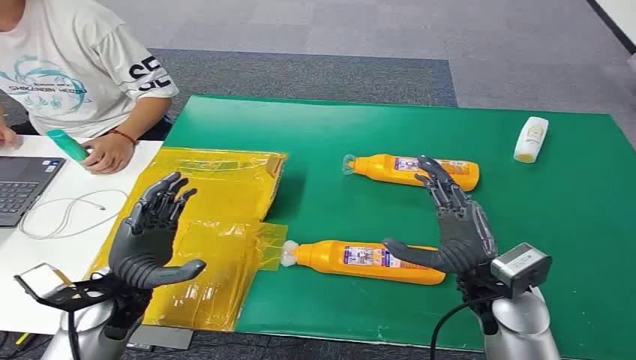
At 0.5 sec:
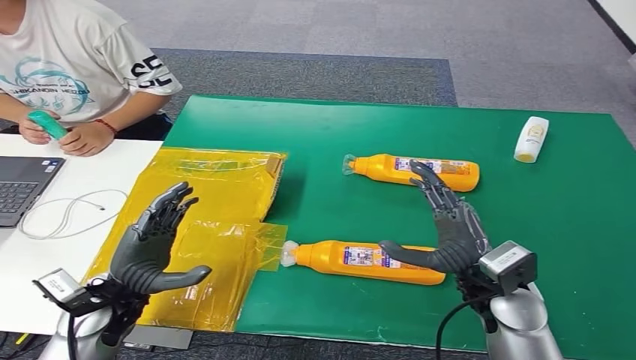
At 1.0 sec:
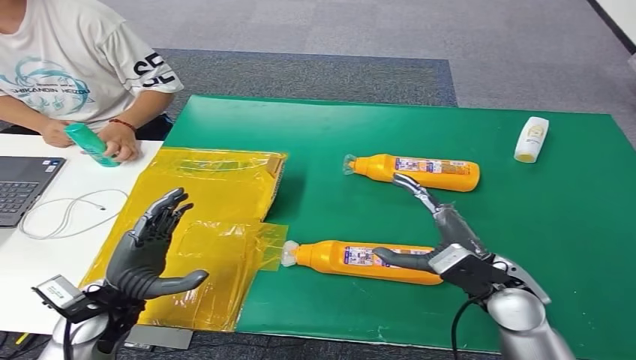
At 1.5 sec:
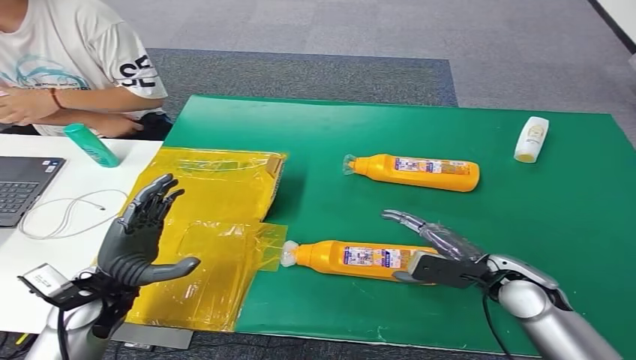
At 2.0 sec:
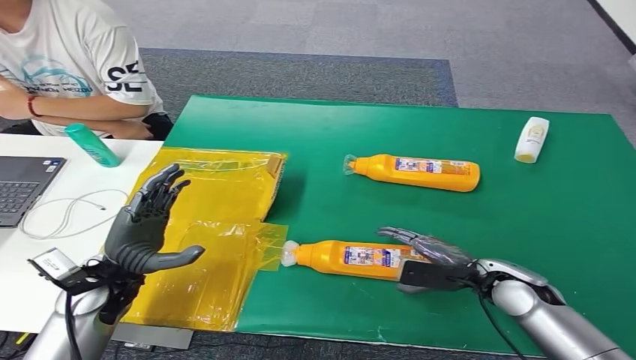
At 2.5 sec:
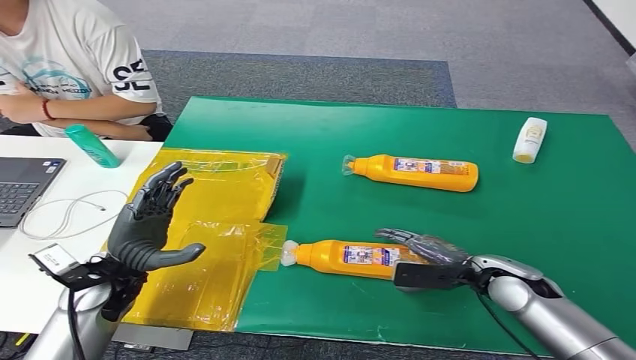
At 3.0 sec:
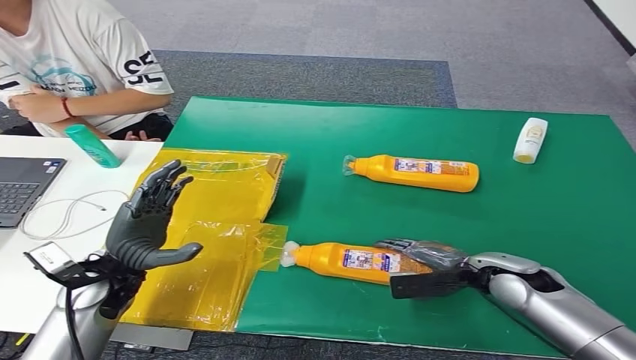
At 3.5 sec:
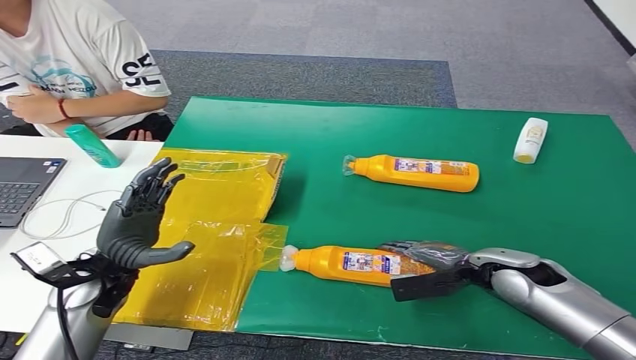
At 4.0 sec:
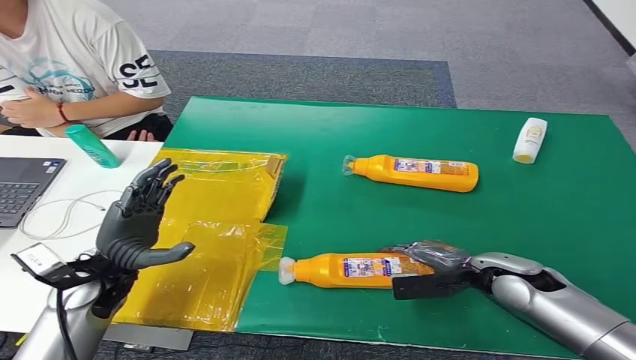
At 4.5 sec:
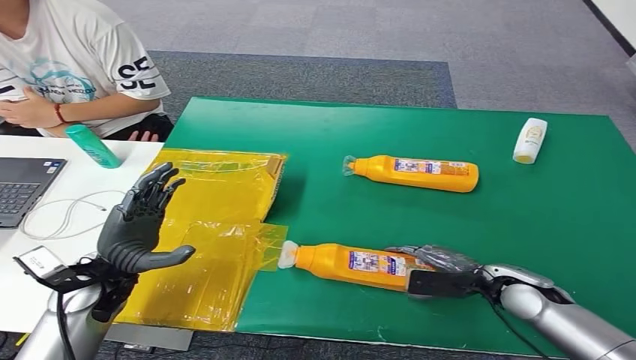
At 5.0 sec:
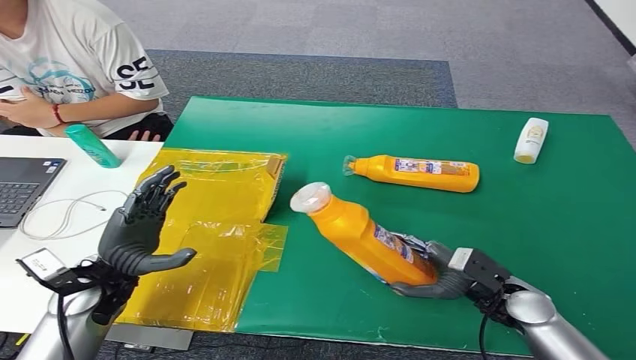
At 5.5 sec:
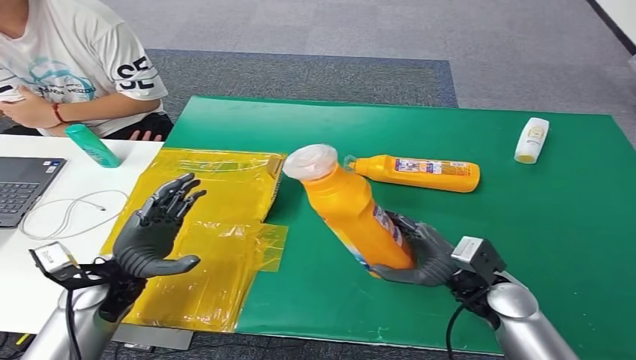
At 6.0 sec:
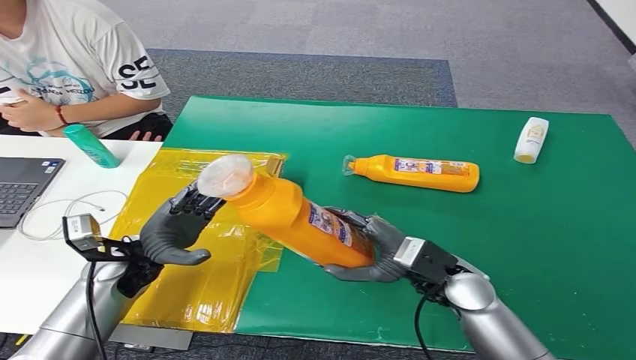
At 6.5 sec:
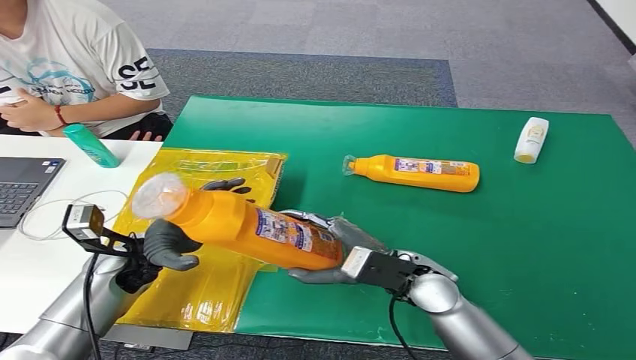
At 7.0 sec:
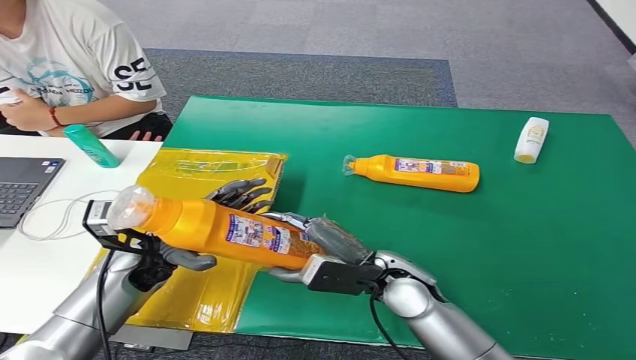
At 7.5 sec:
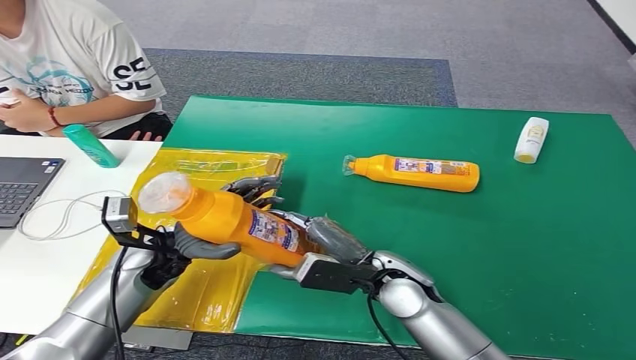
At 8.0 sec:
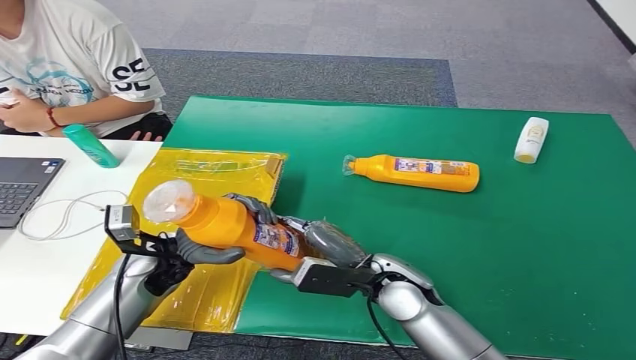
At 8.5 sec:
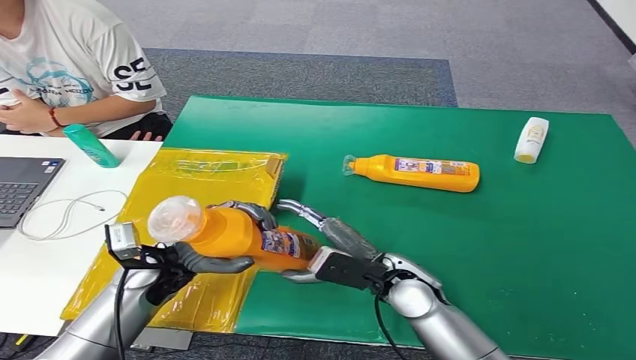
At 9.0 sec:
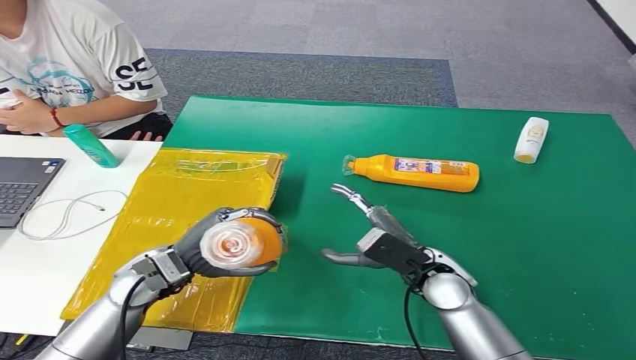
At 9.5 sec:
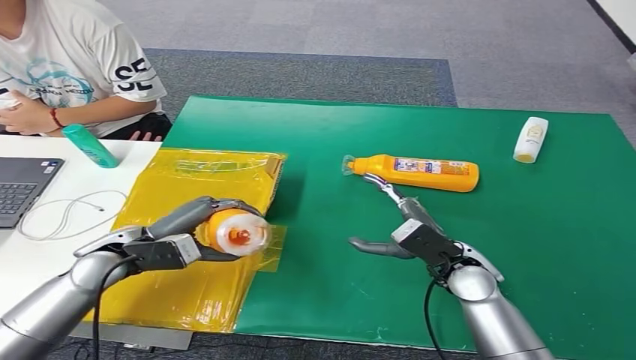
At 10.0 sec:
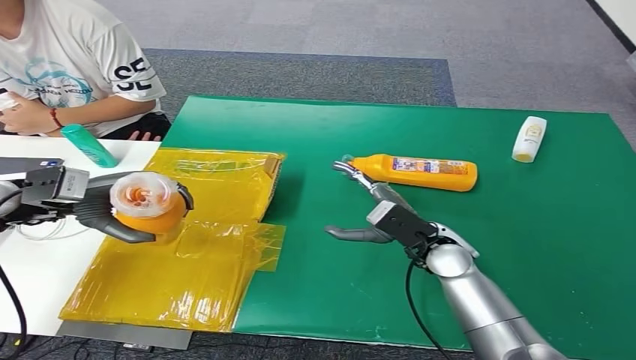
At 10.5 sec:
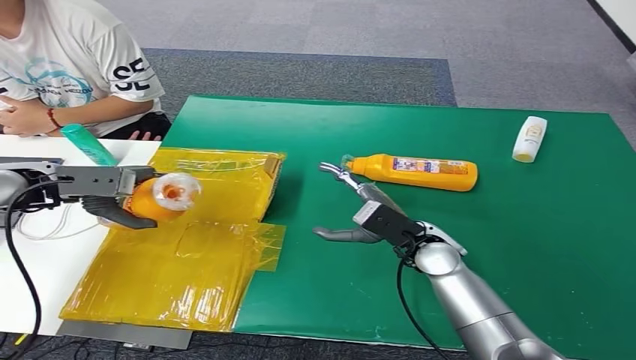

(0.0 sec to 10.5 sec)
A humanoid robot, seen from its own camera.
Step, 0.0 sec - 5.5 sec: Pick up the bottle from the table.
4.0 sec - 6.5 sec: The right hand heads to the left, covering about 15 cm; the left hand moves about 5 cm.
6.5 sec - 8.5 sec: The left hand shifts by about 5 cm.

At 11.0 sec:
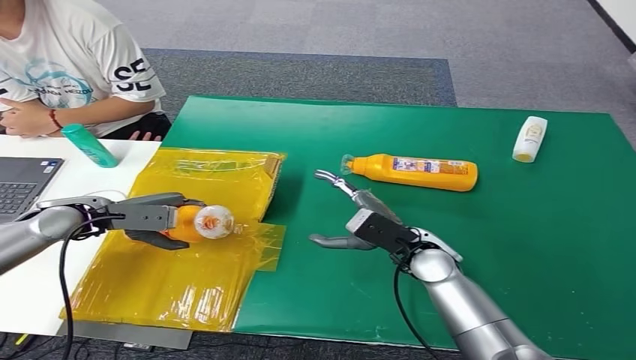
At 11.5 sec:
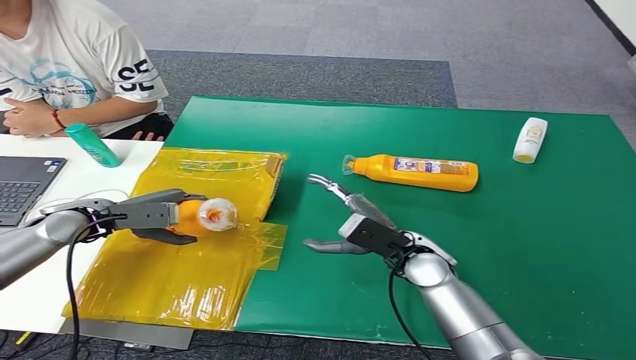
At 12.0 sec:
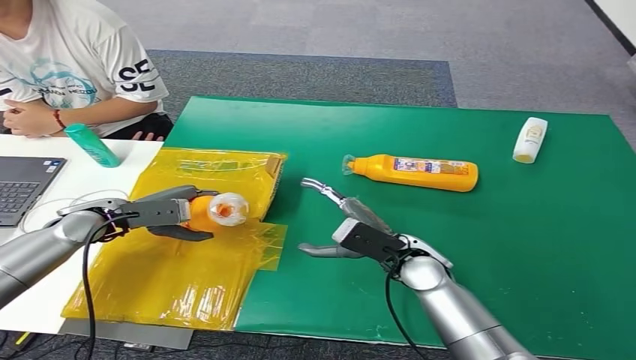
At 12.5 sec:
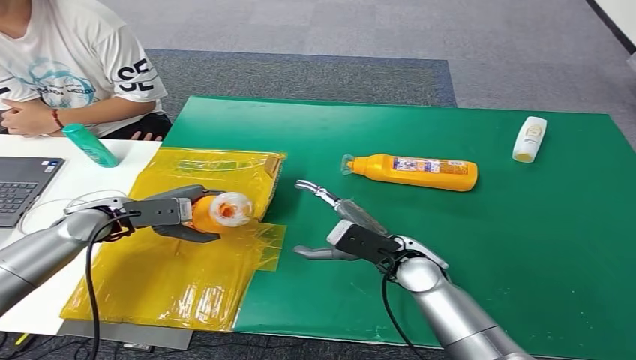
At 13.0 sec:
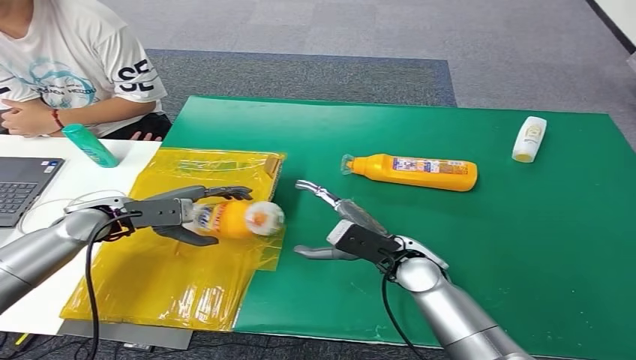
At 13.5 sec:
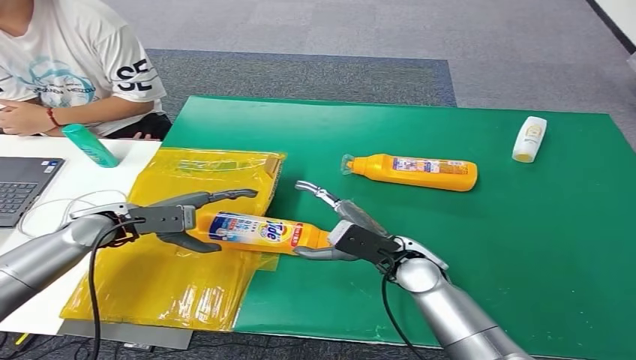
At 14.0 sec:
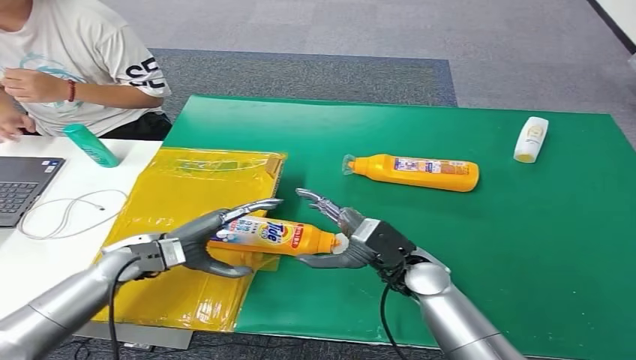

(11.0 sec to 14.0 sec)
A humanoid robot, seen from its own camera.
Step, 11.0 sec - 14.0 sec: Turn the bottle to the front side.
11.0 sec - 12.5 sec: The hands make only small movements.
